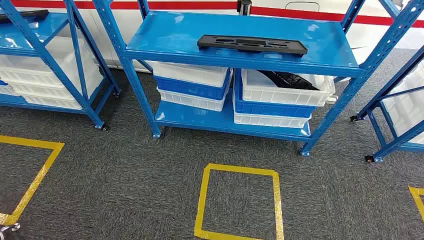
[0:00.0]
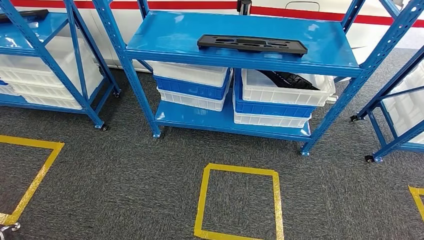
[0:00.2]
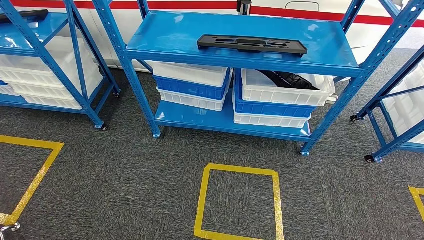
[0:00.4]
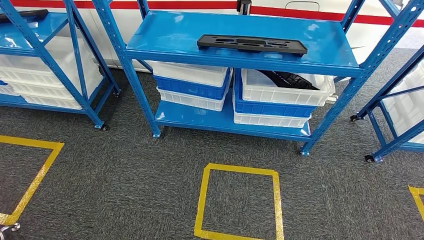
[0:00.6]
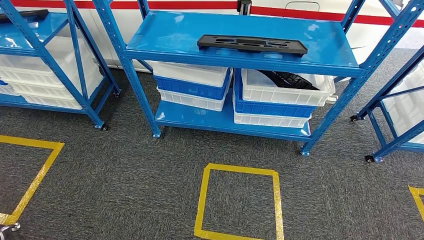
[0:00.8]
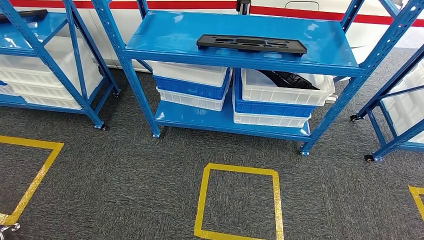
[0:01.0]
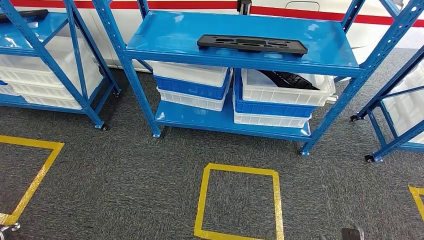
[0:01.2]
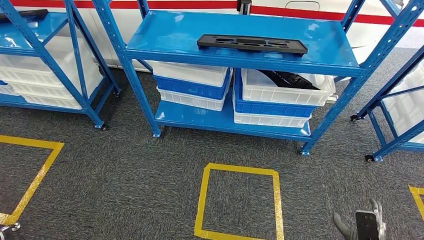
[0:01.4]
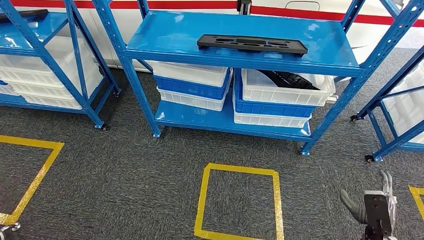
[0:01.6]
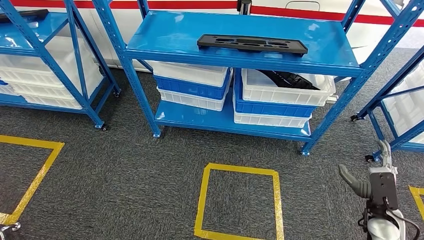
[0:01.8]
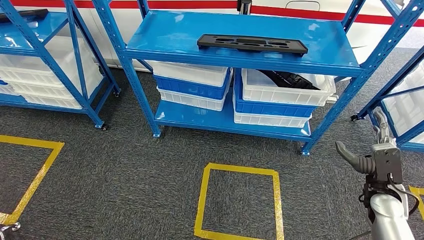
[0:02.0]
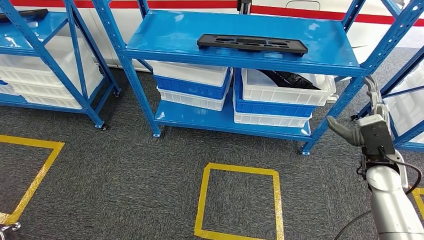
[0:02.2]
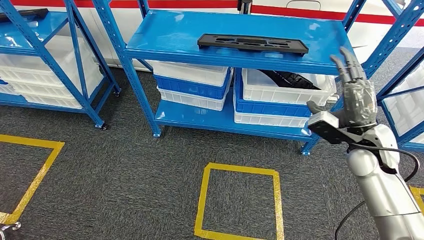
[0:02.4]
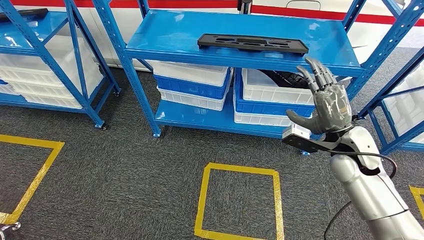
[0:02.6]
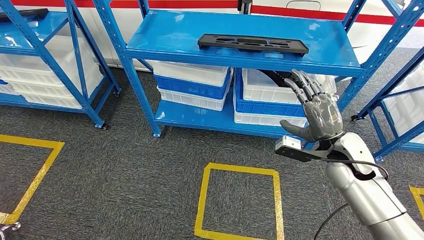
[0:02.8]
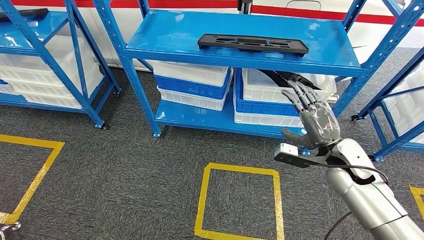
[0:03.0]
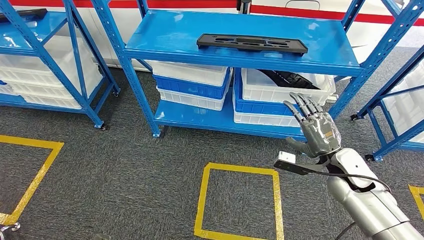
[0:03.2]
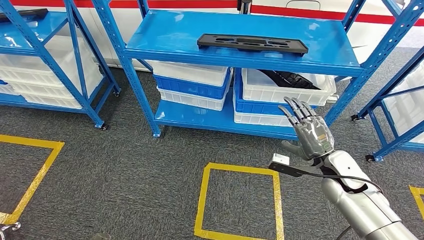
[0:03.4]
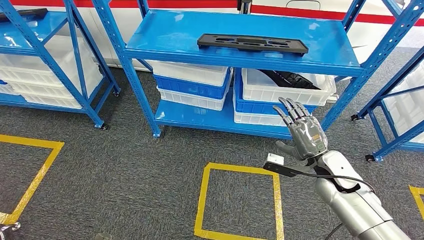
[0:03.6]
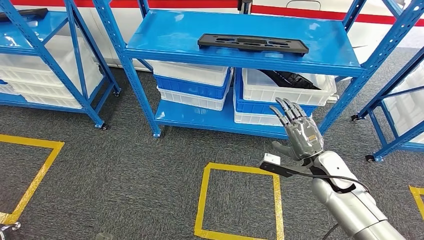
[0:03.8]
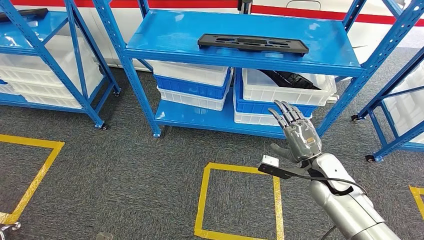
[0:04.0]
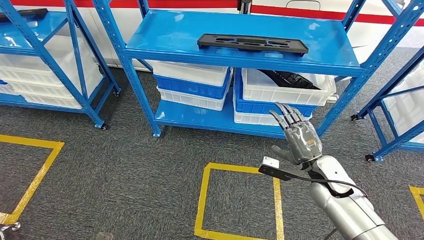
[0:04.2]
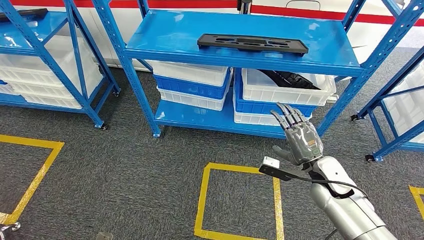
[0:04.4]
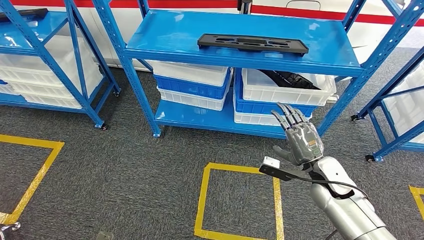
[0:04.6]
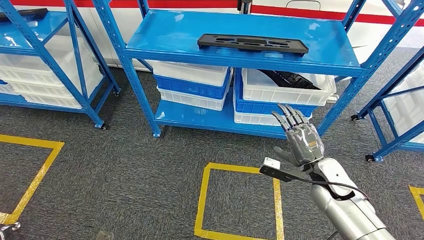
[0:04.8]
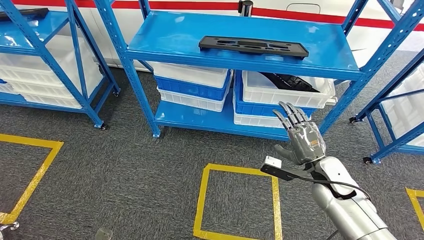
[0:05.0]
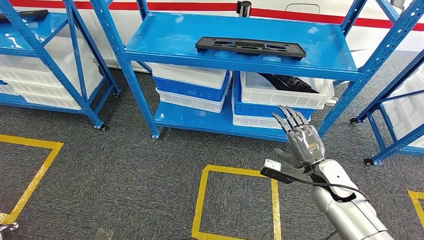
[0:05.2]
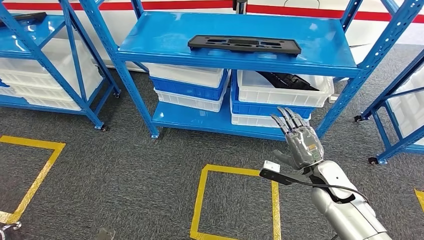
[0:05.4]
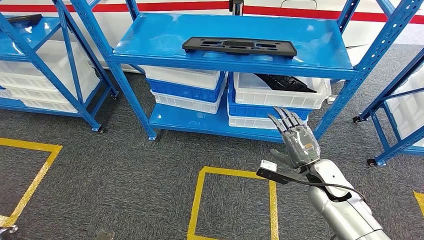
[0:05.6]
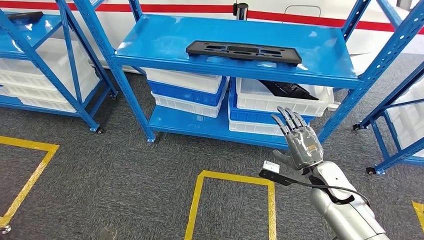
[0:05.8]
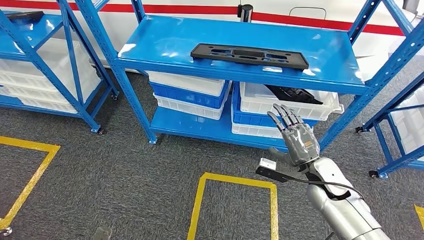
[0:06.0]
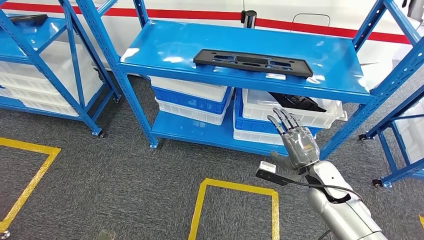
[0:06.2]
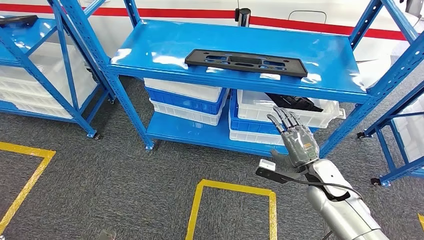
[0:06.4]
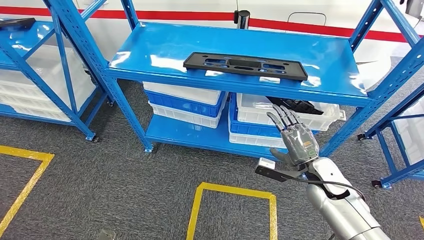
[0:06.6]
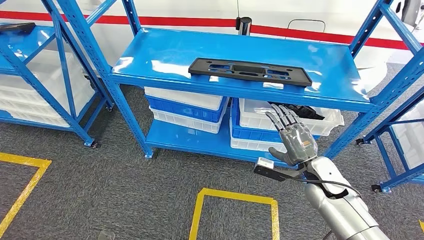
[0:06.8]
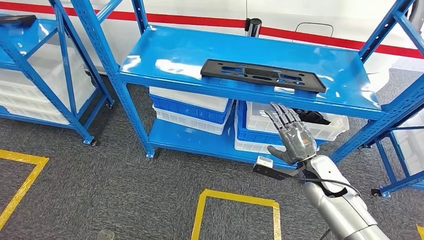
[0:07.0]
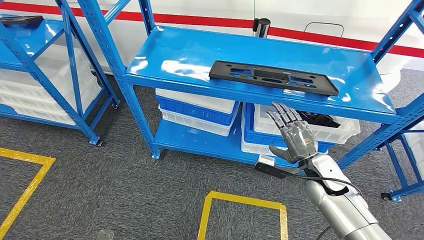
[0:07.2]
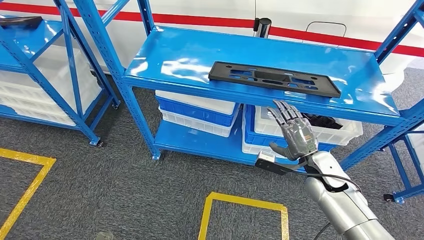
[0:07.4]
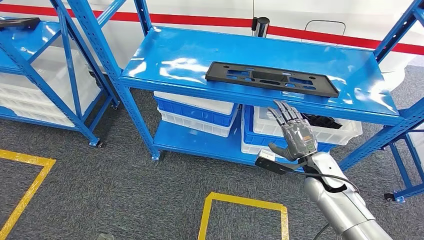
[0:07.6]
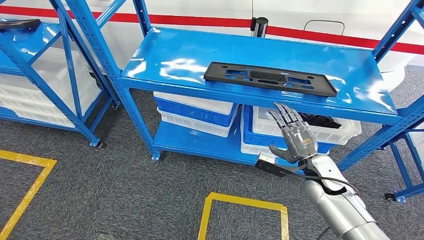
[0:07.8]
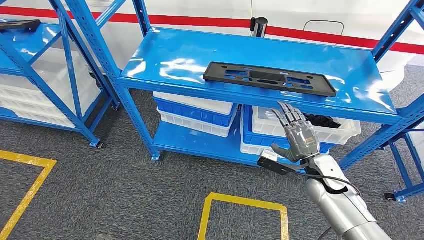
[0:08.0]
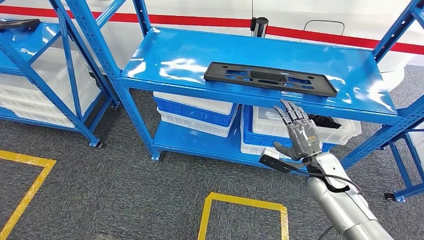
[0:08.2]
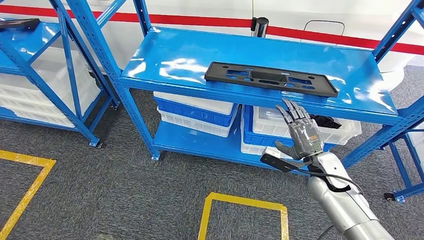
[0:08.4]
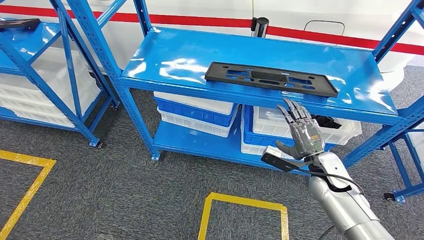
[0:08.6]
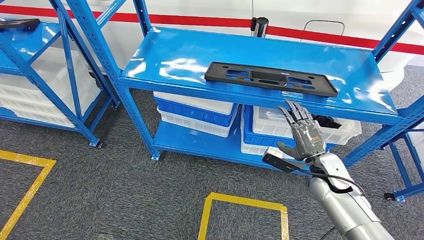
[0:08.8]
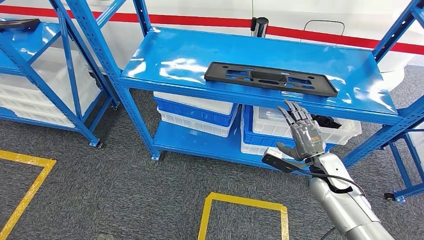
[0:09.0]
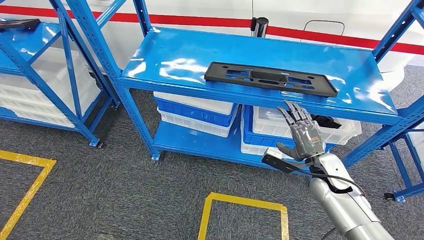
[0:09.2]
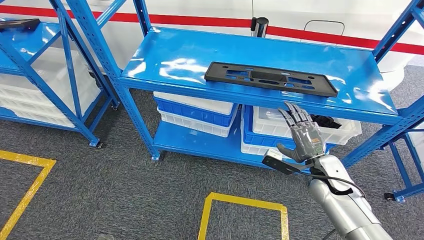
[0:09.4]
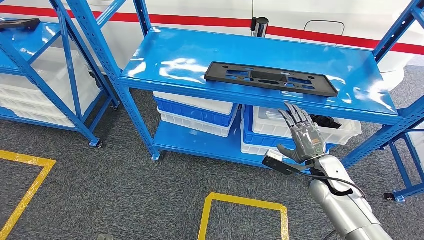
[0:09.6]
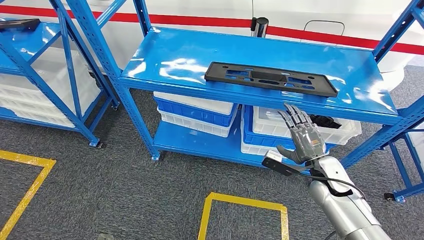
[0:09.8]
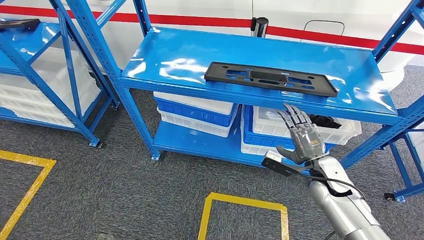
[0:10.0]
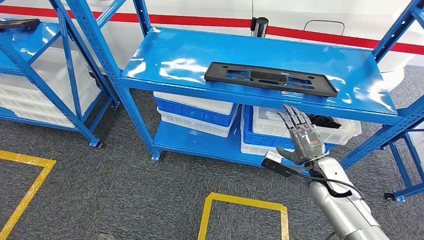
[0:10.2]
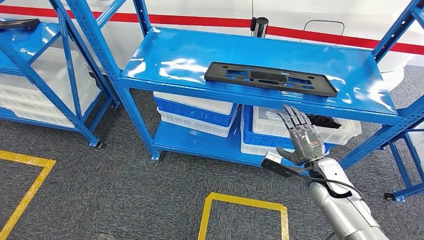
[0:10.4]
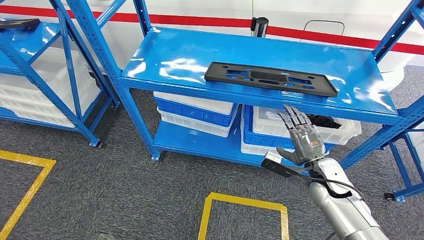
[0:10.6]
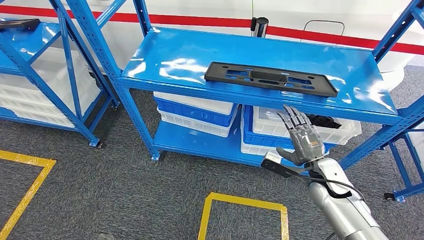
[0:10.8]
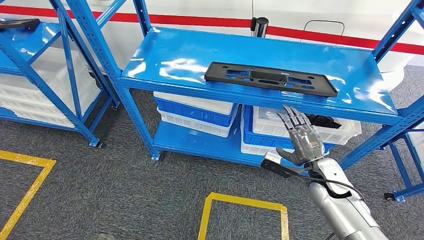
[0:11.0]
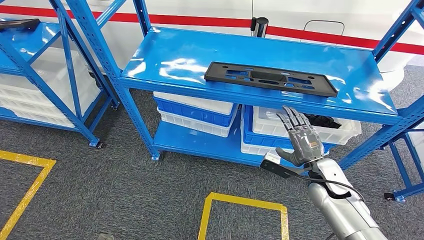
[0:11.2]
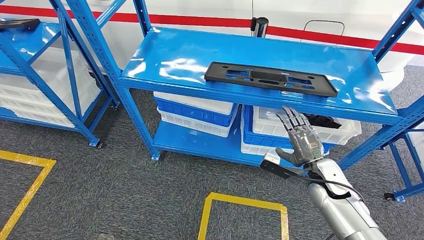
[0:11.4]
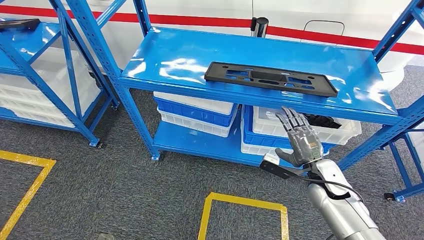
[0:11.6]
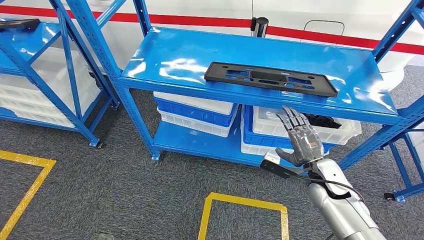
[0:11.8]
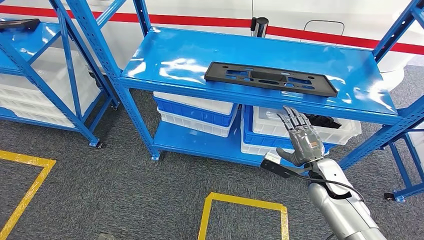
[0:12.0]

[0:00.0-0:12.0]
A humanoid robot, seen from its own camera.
0:01.6 to 0:03.0: The right hand heads upward, forward and to the left, covering roughly 25 cm.
0:03.0 to 0:04.4: The right hand is displaced downward by some 5 cm.
0:07.6 to 0:09.0: There are only small adjustments of the hands.
0:09.0 to 0:10.4: Neither hand changes place.
0:10.4 to 0:12.0: The two hands keep their place.

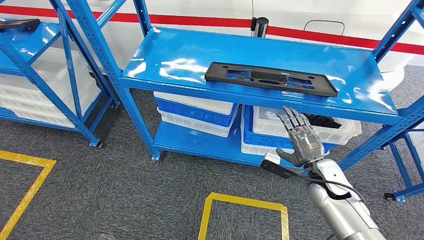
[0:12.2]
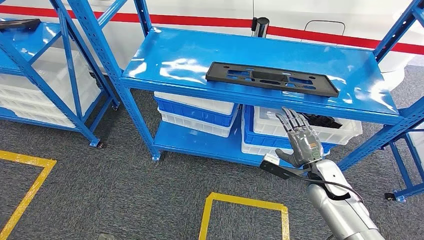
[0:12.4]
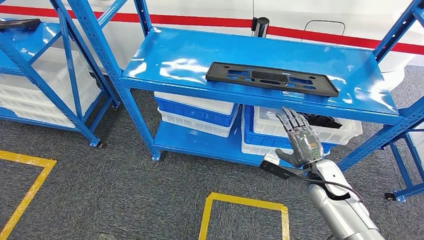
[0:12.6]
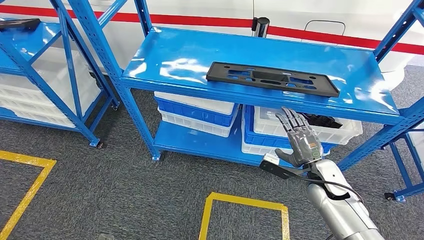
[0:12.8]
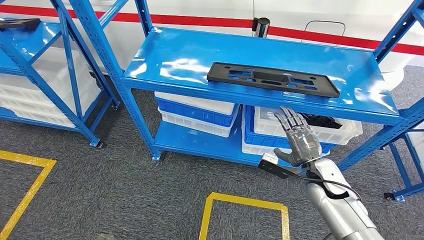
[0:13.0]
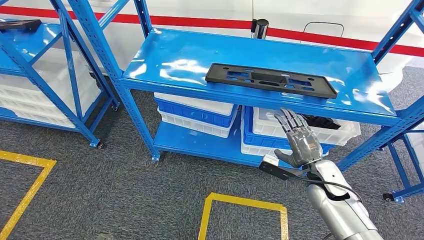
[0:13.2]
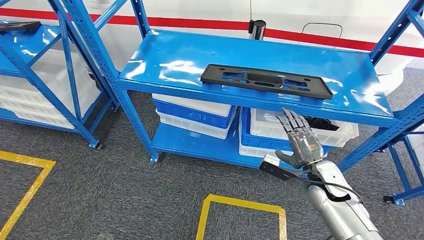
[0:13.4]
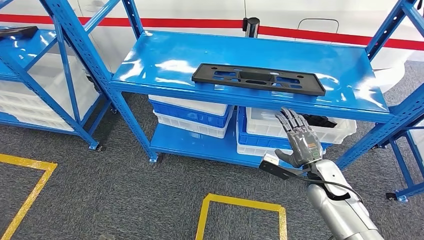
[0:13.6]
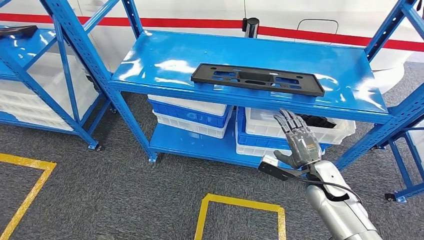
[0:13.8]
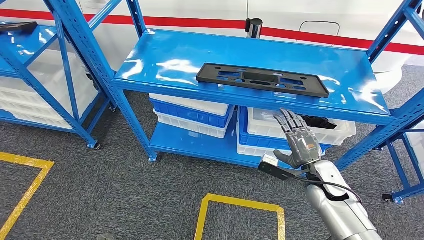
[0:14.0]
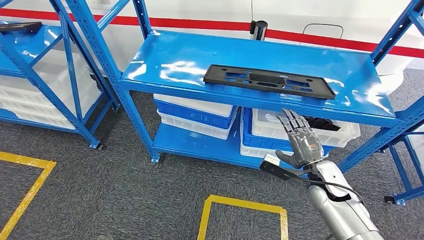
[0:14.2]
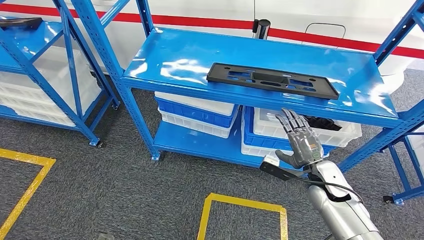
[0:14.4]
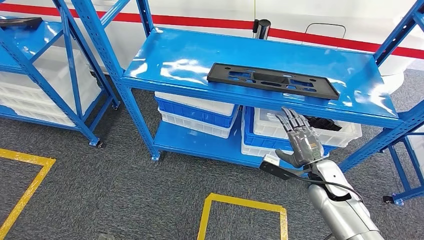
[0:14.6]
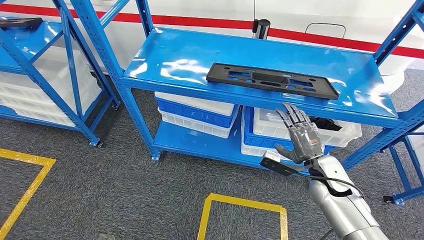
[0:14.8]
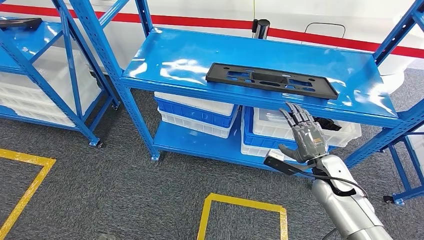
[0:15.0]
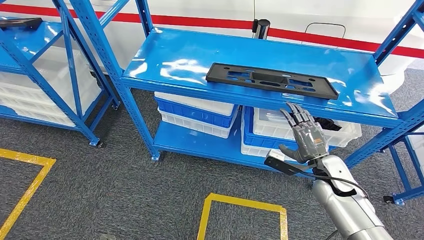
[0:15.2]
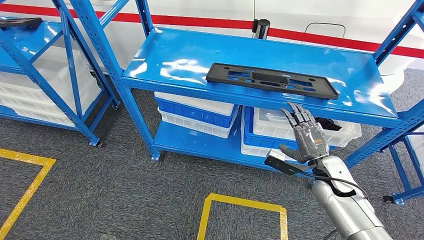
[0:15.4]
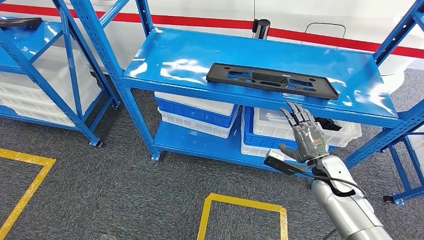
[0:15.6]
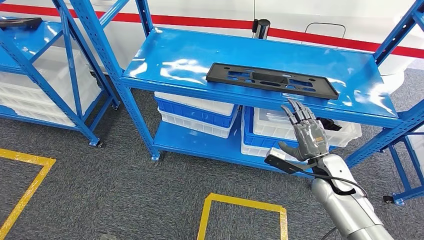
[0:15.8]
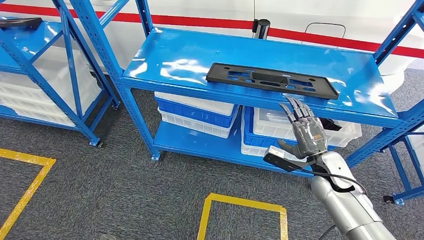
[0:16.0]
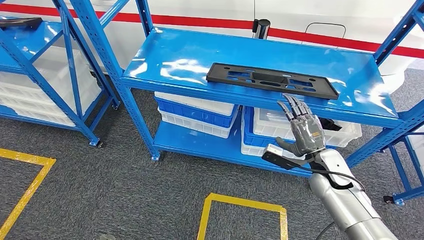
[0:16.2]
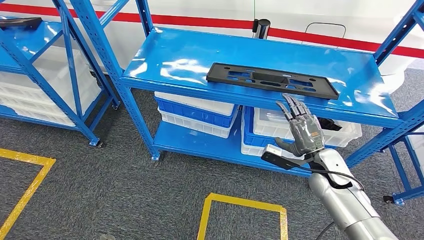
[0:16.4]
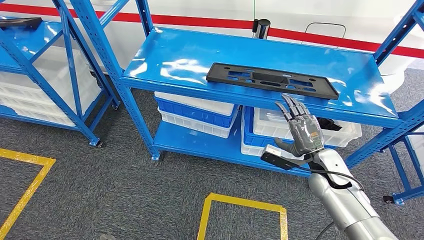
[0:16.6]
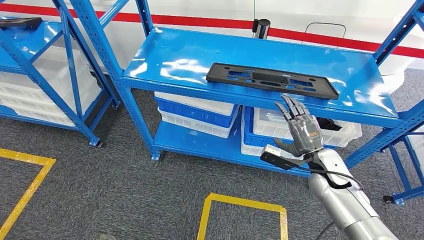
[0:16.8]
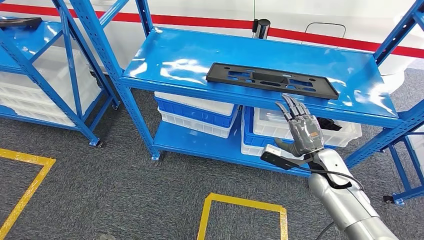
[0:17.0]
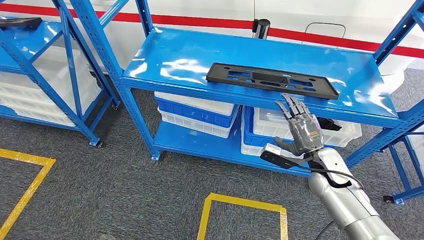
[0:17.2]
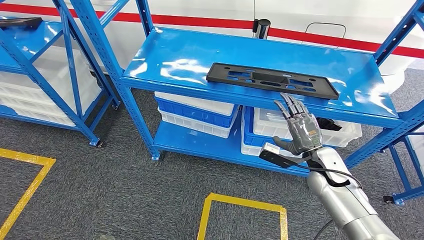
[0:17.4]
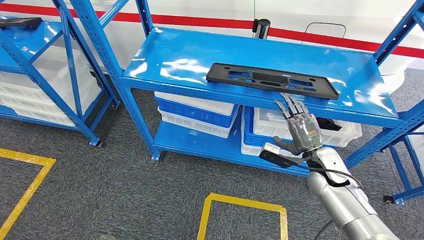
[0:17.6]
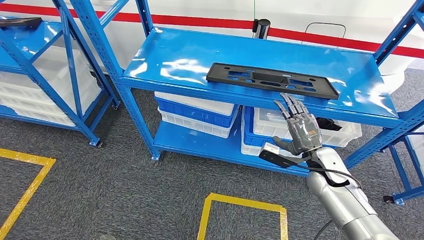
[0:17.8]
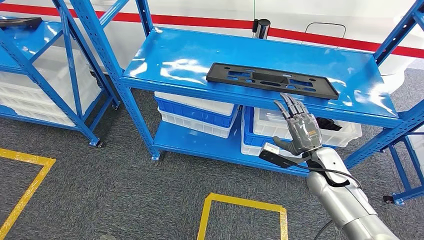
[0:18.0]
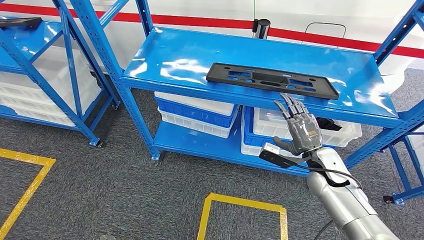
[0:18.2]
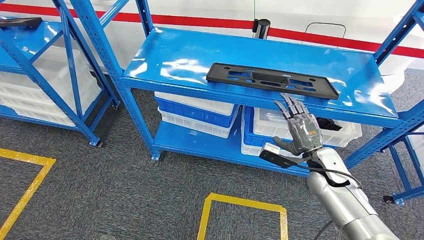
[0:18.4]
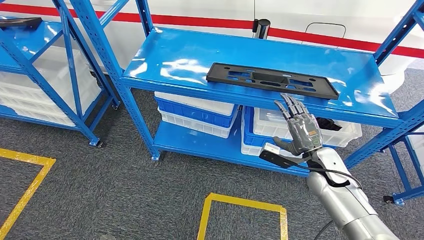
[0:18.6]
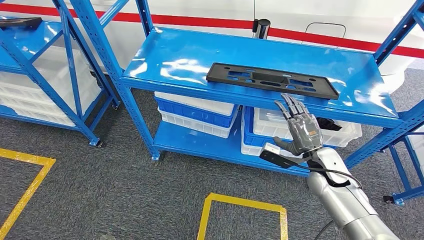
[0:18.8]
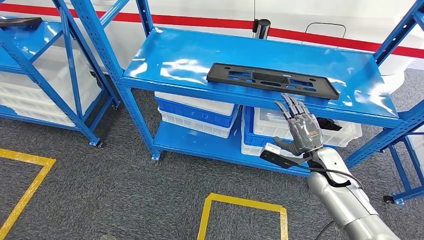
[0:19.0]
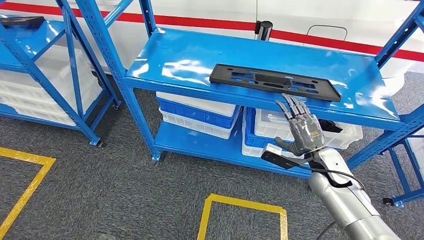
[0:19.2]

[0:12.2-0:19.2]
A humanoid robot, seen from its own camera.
0:15.0 to 0:16.4: The hands stay close to where they were, moving slightly.
0:16.4 to 0:19.2: Neither hand changes place.
